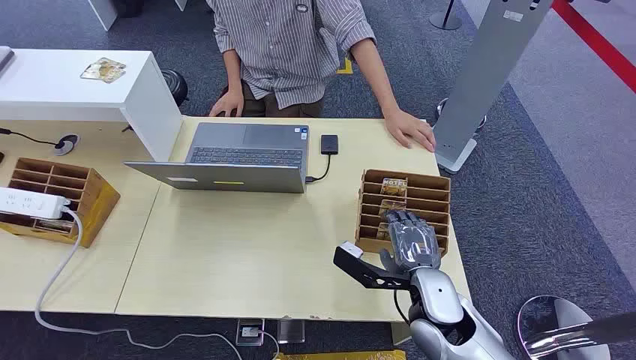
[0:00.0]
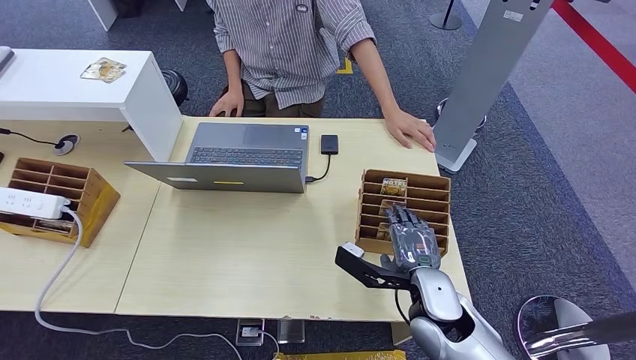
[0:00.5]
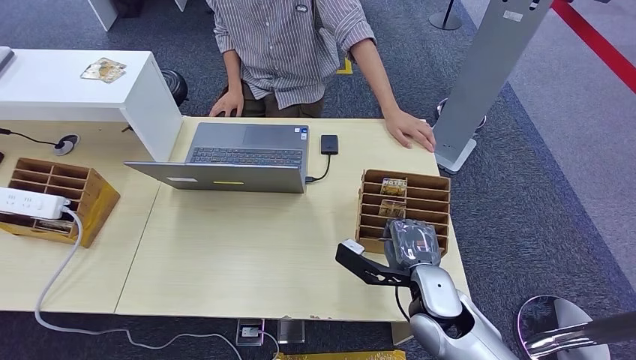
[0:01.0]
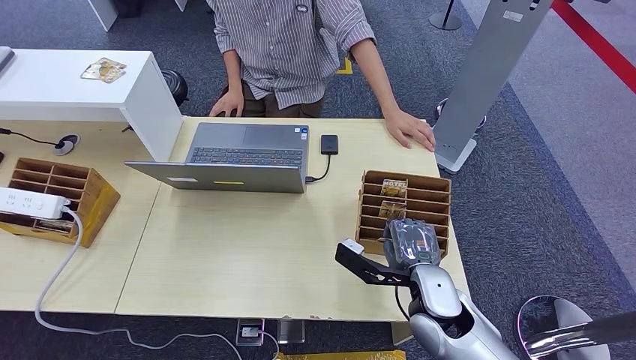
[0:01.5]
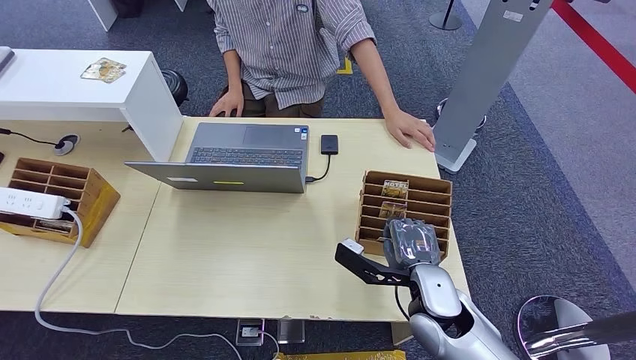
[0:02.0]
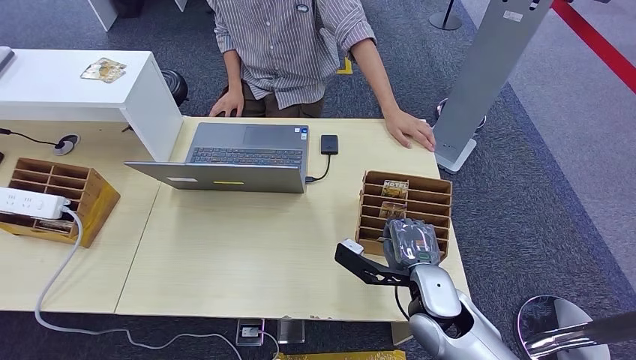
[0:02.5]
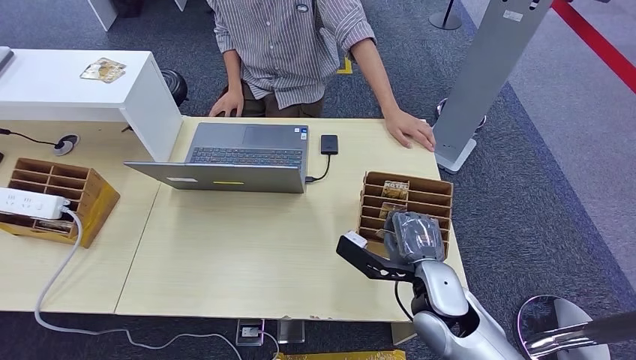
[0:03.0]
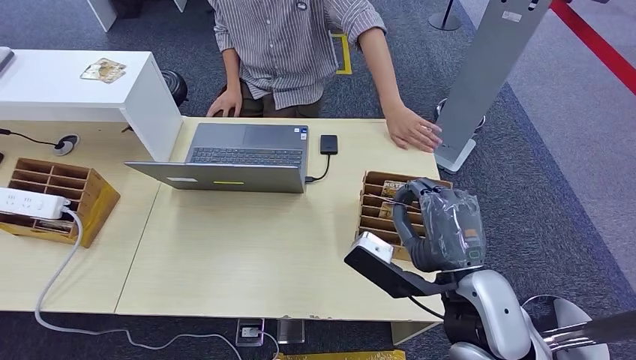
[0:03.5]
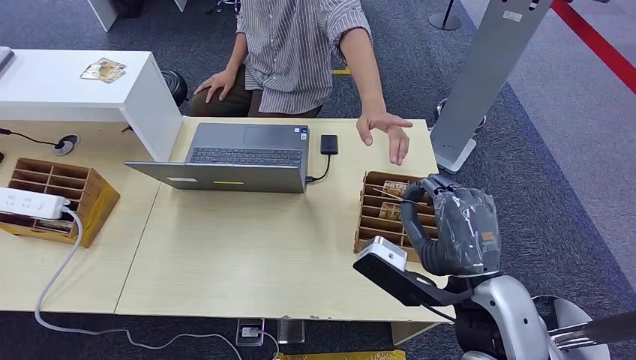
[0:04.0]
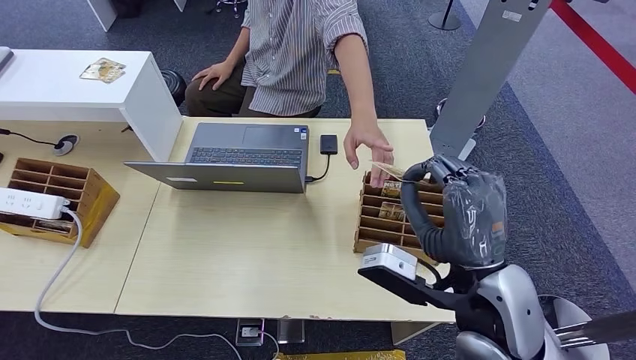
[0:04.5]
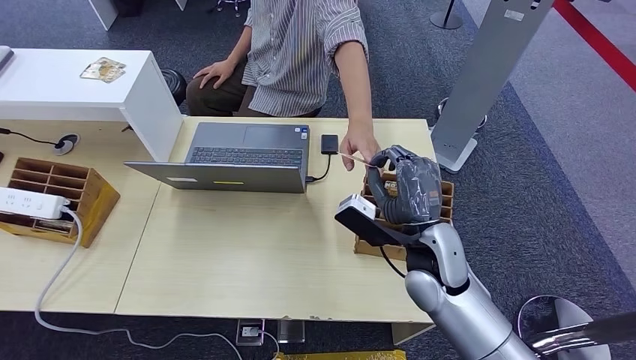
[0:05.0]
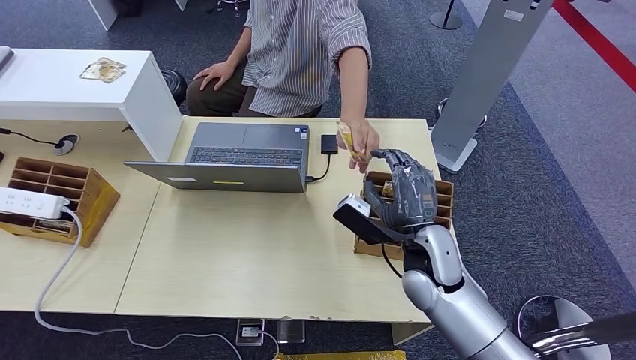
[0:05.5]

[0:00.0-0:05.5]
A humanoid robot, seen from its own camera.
Step, 0:00.0 to 0:03.0: Pick up the room card from the card holder.
Step, 0:04.0 to 0:05.5: Hand the room card to the target.
0:02.0 to 0:03.5: The right hand is displaced upward and backward by roughly 15 cm.
0:03.5 to 0:05.5: The right hand shifts approximately 15 cm forward and downward.
